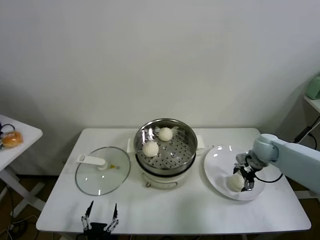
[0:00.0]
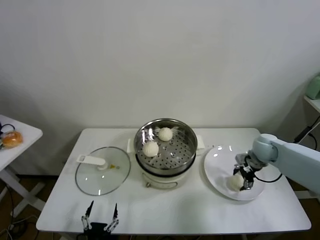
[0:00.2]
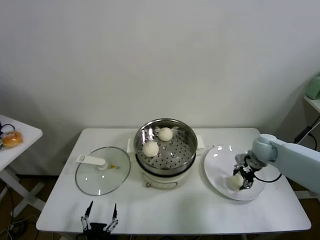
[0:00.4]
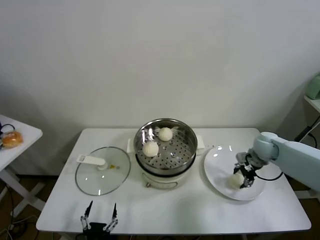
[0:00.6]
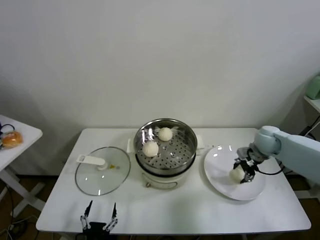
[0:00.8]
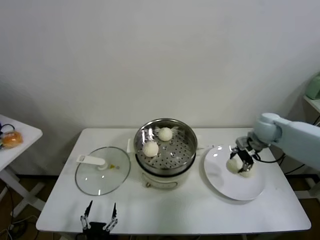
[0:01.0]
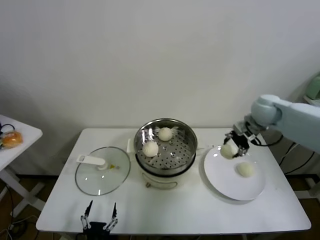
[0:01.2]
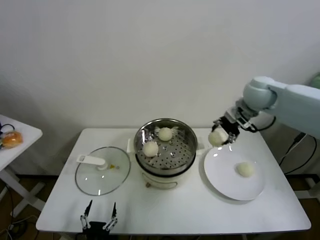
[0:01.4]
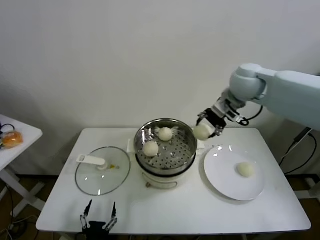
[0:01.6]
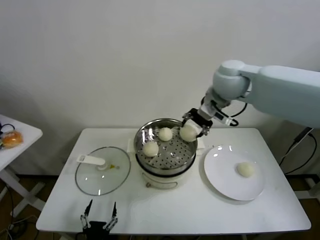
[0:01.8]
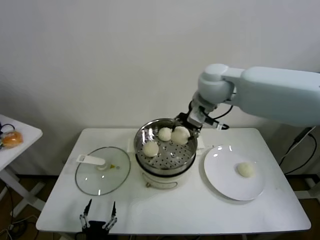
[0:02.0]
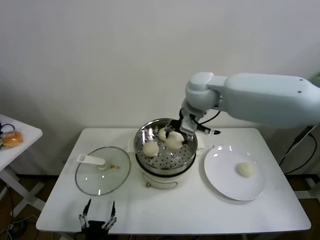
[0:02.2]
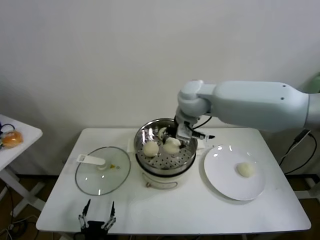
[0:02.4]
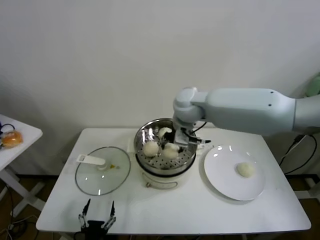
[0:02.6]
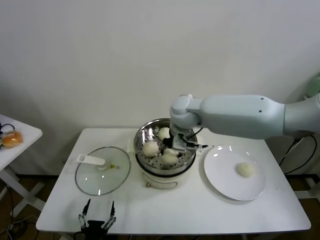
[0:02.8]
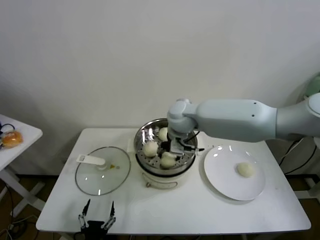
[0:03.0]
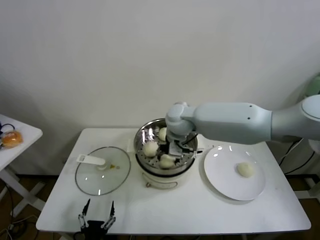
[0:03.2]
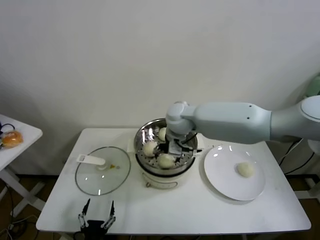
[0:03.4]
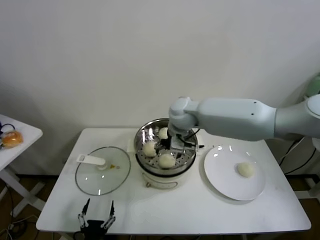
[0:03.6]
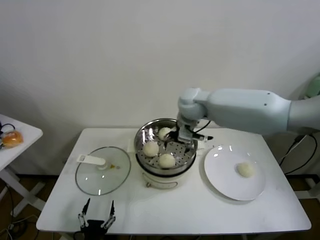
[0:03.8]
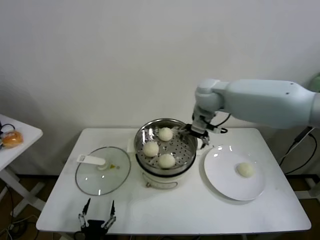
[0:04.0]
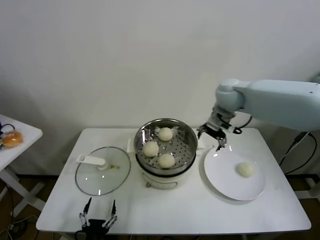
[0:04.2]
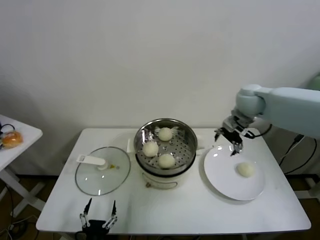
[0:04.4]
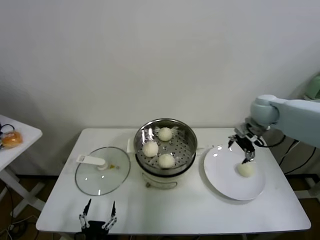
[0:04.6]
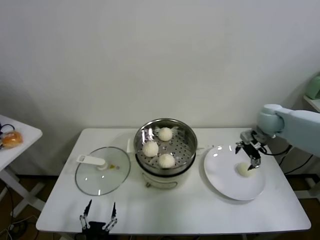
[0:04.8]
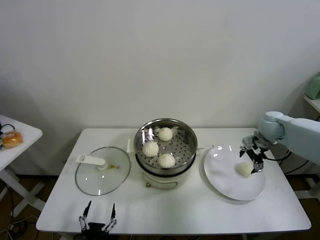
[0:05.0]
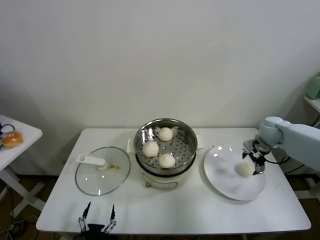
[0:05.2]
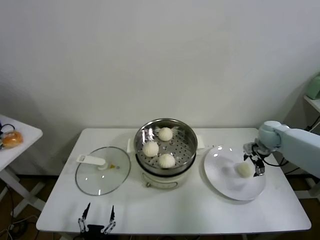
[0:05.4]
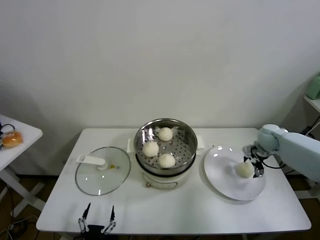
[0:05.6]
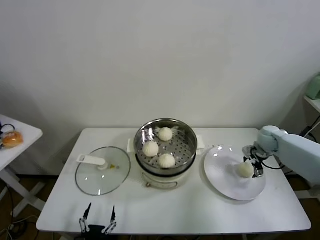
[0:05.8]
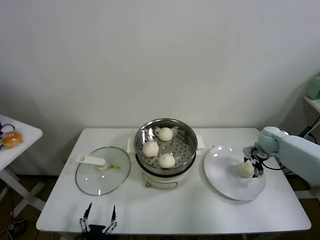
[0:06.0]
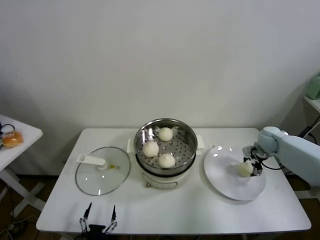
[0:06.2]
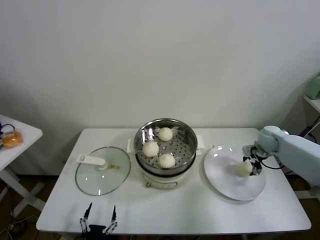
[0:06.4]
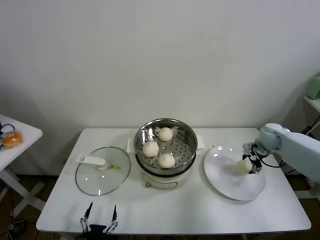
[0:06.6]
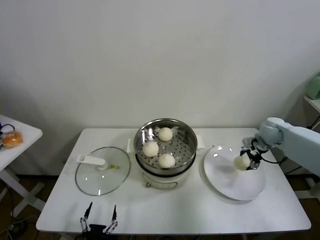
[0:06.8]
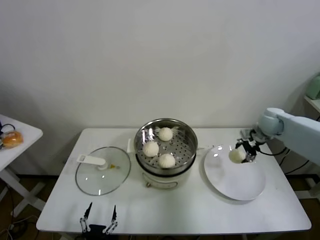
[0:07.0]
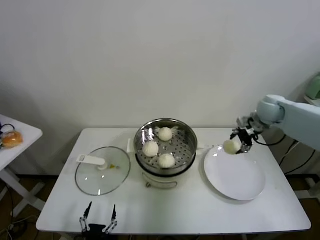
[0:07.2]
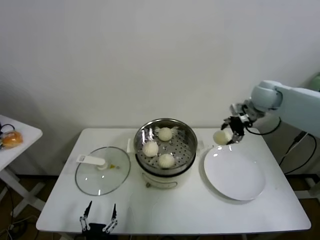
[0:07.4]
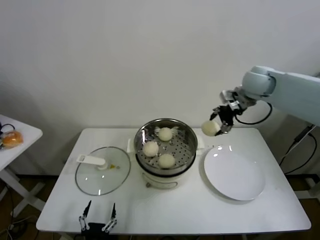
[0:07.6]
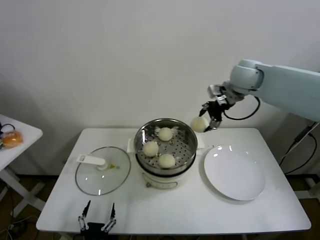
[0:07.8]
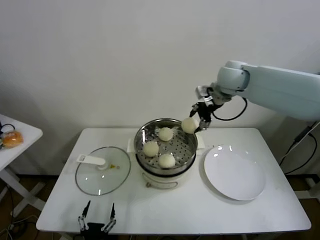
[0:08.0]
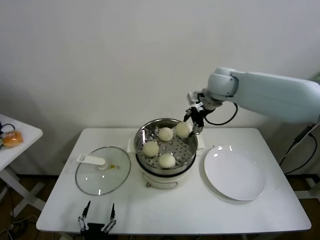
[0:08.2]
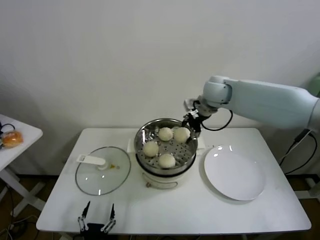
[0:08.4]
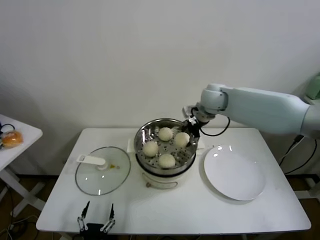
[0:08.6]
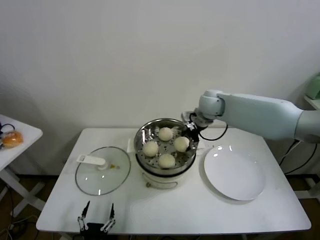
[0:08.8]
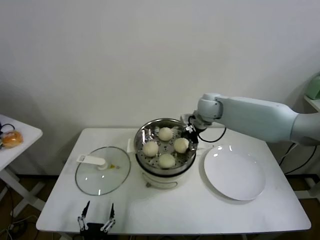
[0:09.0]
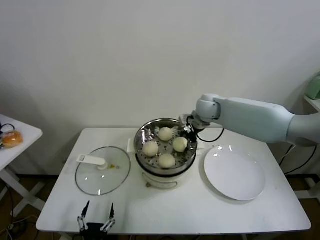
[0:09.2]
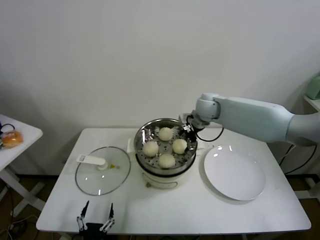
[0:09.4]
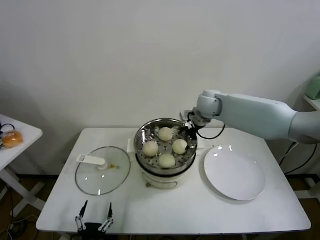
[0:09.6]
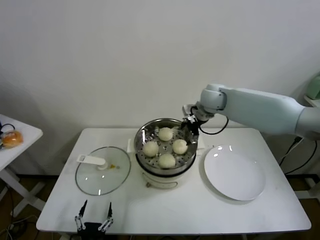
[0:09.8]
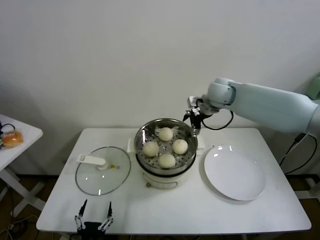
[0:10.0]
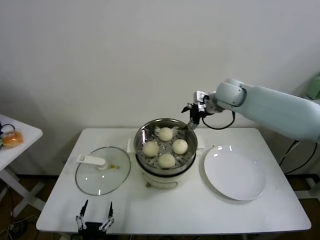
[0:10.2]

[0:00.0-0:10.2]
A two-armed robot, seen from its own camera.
Task of the whole recording: take steamed baozi put them in steamer.
Step, 0:00.6 to 0:03.4: Place the baozi on the steamer with right gripper.
Step, 0:03.6 to 0:06.2: Grasp the baozi in the plate with right gripper.
Step, 0:06.4 to 0:09.4: Place the baozi on the steamer with right gripper.
0:00.0 to 0:01.4: The right gripper goes some 25 cm upward and to the left, and closes up.
0:01.4 to 0:03.0: The right gripper is displaced to the left by approximately 25 cm.
0:03.0 to 0:04.4: The right gripper shifts approximately 20 cm to the right, and opens up.
0:04.4 to 0:05.8: The right gripper moves downward and to the right, approximately 25 cm.
0:05.8 to 0:07.2: The right gripper moves upward, about 15 cm, and closes.
0:07.2 to 0:08.8: The right gripper travels to the left by about 20 cm.
0:08.8 to 0:10.2: The right gripper shifts by approximately 5 cm, and opens its fingers.

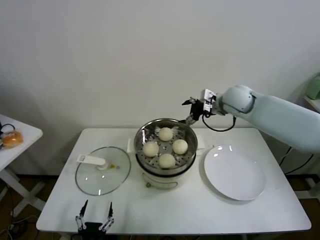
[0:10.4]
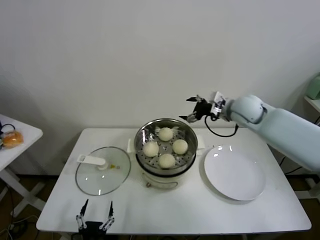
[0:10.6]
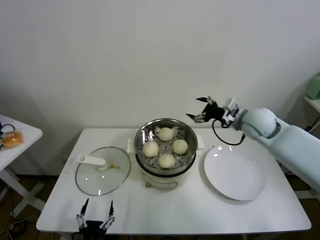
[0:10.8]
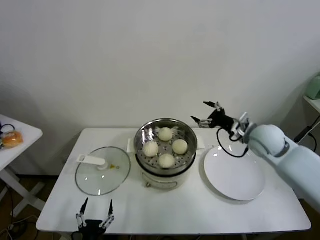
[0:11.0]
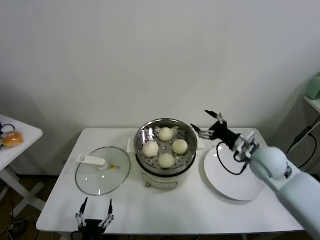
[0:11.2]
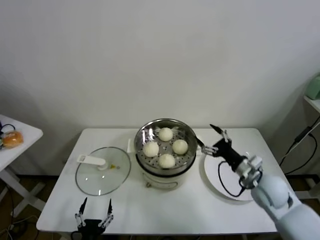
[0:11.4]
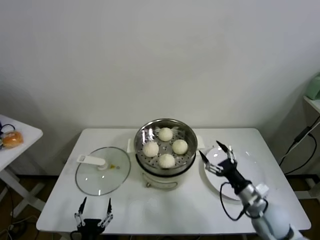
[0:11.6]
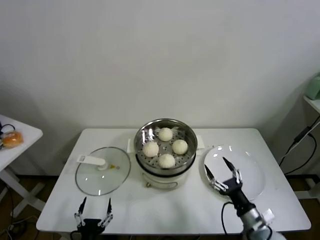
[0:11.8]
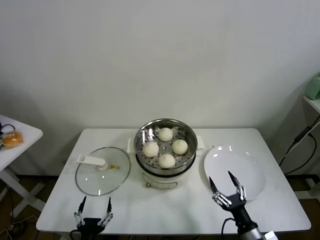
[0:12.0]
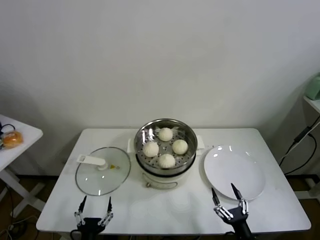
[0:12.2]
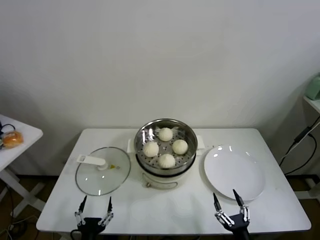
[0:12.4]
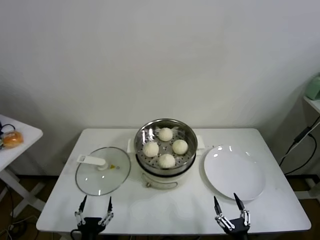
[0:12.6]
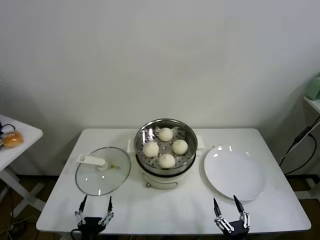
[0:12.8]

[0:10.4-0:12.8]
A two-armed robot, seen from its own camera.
Task of the whole recording: take steamed baozi put them in steamer.
0:10.4 to 0:11.6: The right gripper goes some 35 cm backward and downward.
0:11.6 to 0:12.8: The right gripper goes about 25 cm backward and downward.
